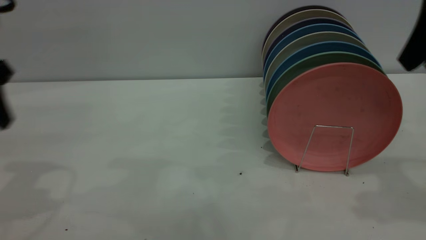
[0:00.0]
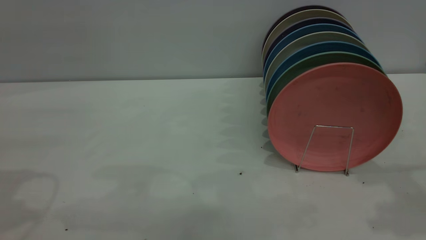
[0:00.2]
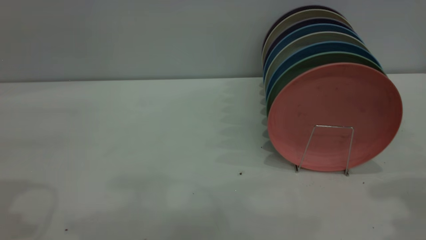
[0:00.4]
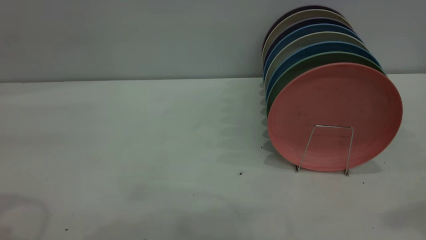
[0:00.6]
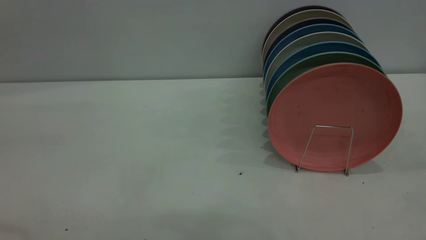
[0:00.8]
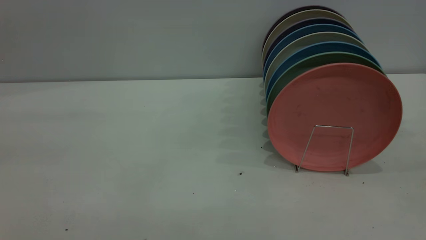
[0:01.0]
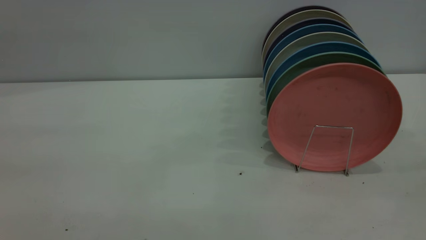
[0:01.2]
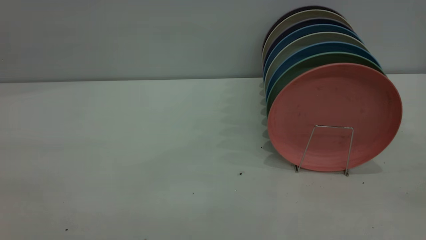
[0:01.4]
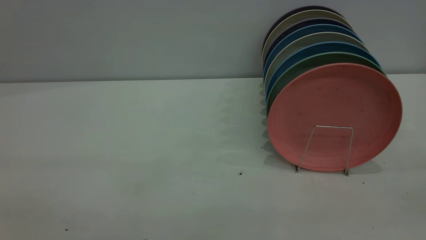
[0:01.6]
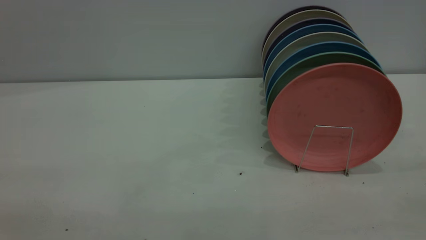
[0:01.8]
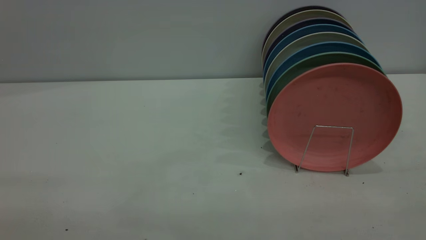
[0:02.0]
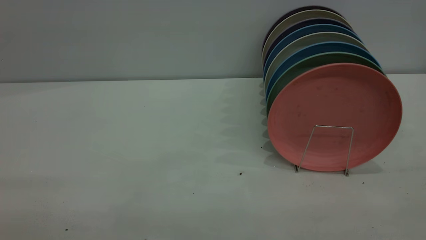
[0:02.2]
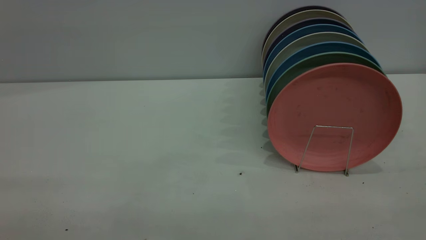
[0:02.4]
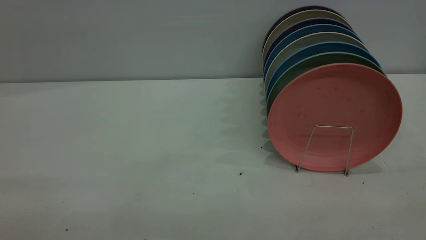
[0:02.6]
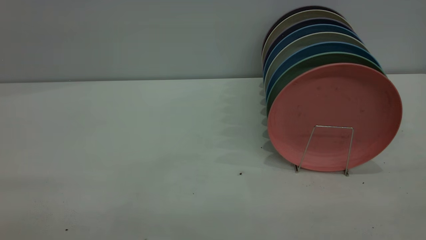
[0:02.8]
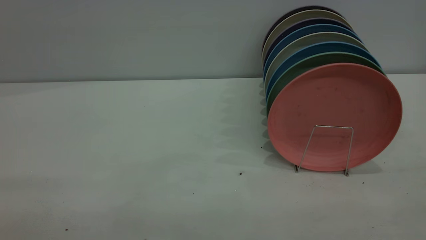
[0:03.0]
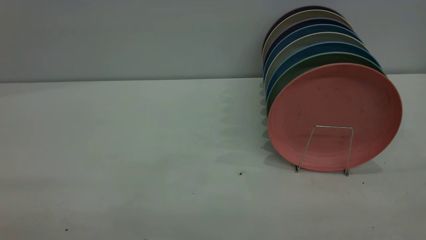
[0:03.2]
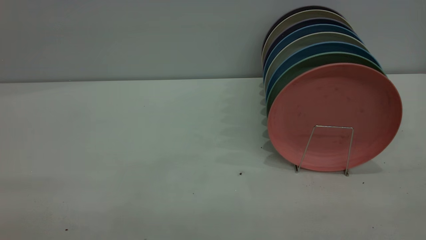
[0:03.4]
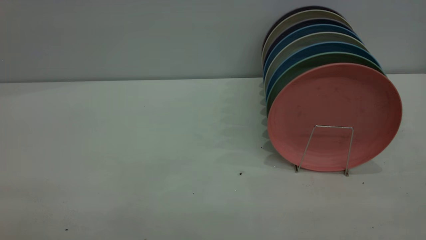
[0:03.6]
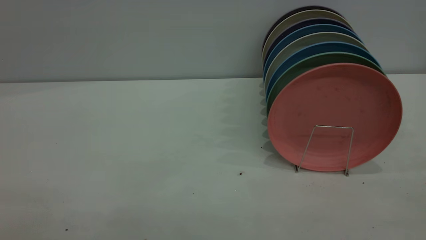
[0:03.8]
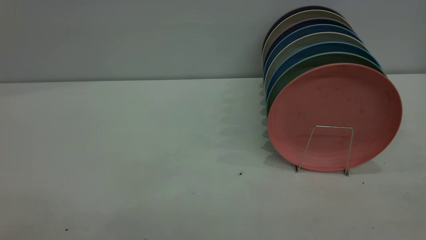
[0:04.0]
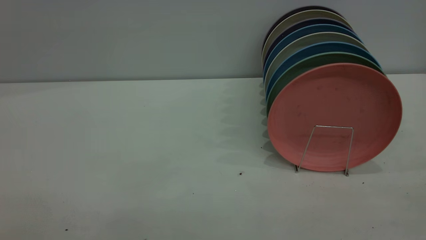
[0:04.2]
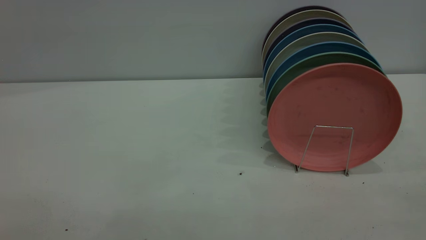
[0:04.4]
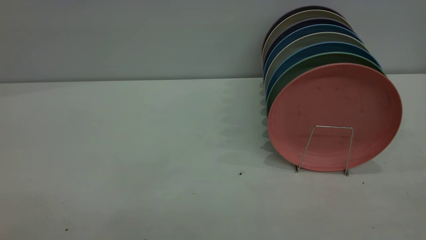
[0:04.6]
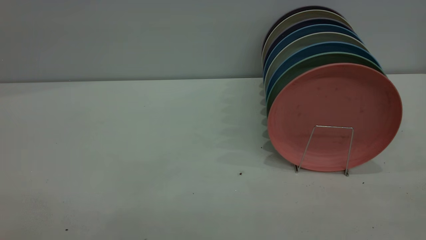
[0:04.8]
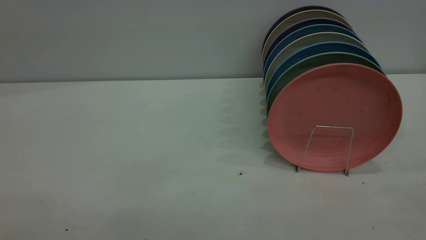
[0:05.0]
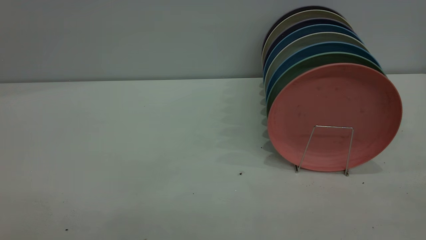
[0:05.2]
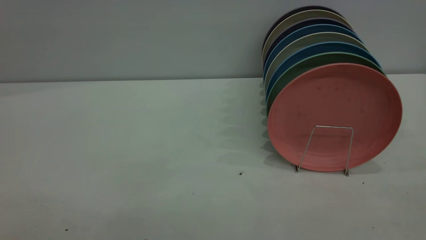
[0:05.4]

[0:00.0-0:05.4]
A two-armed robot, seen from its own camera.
Task of the whole recording: put the plate on the plate rack.
0:00.0 to 0:01.4: The left gripper shifts some 30 cm backward and upward, while the right gripper is displaced backward by about 25 cm.
0:04.0 to 0:05.4: Both grippers stay put.
